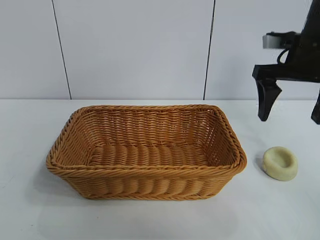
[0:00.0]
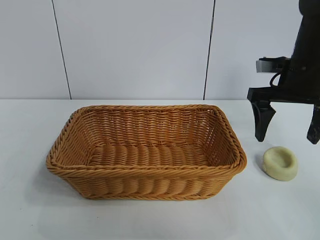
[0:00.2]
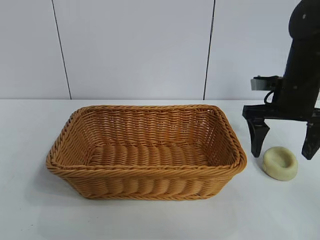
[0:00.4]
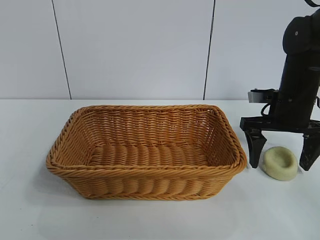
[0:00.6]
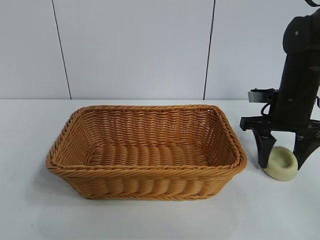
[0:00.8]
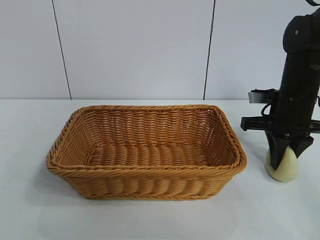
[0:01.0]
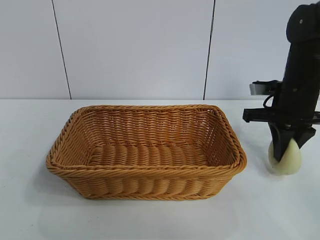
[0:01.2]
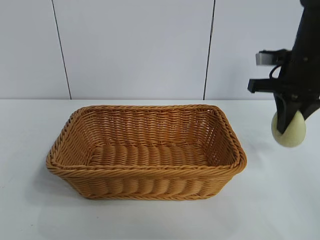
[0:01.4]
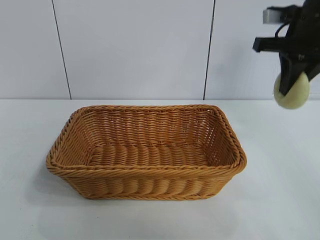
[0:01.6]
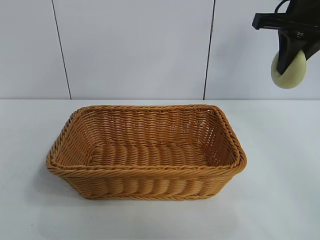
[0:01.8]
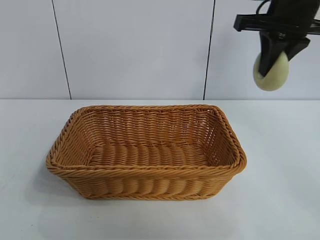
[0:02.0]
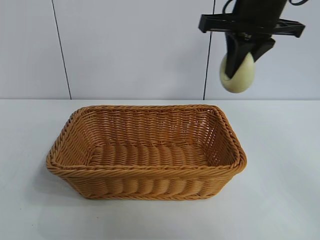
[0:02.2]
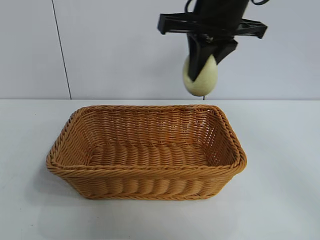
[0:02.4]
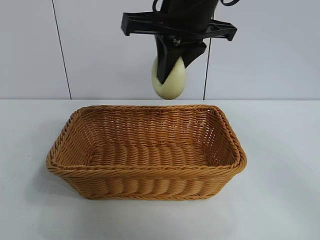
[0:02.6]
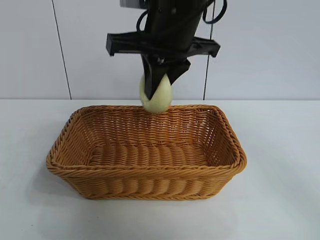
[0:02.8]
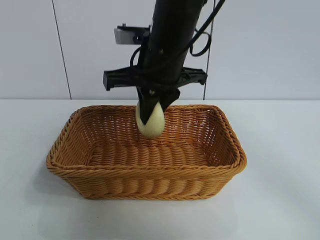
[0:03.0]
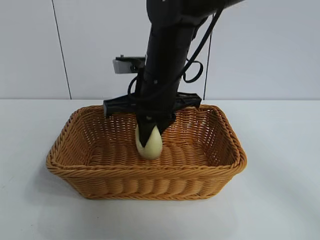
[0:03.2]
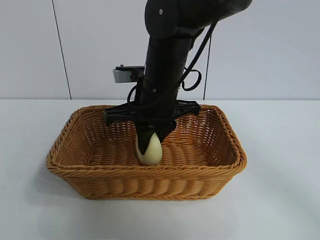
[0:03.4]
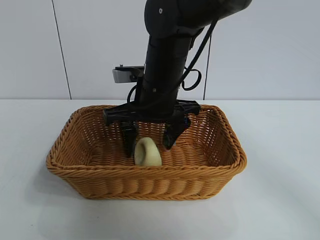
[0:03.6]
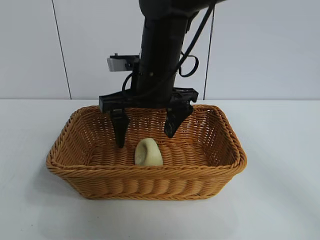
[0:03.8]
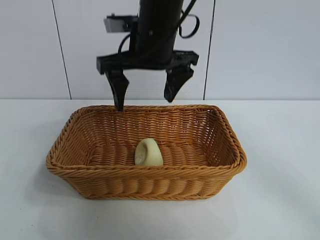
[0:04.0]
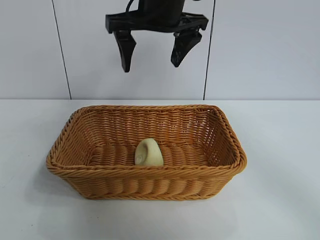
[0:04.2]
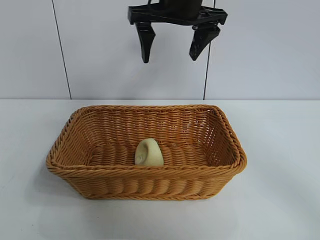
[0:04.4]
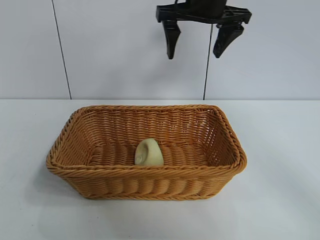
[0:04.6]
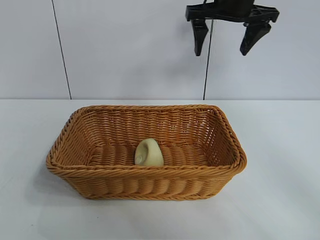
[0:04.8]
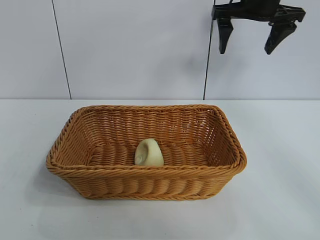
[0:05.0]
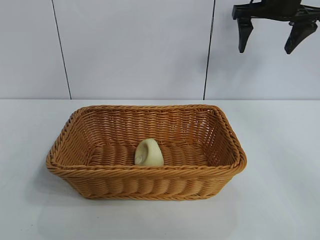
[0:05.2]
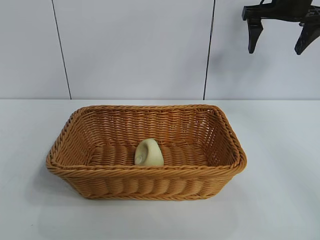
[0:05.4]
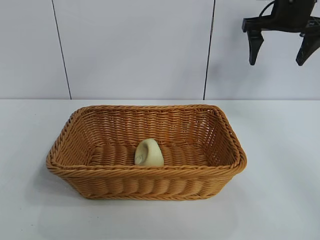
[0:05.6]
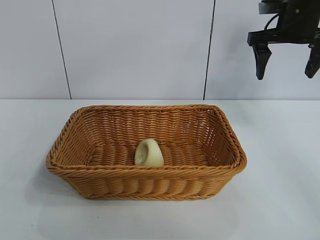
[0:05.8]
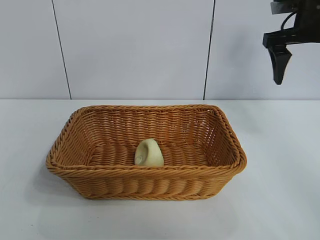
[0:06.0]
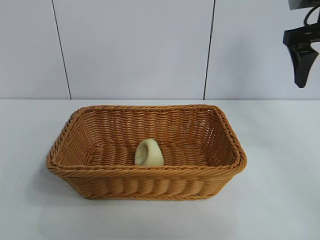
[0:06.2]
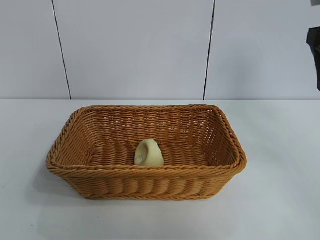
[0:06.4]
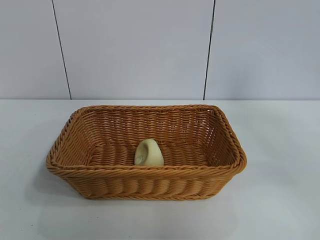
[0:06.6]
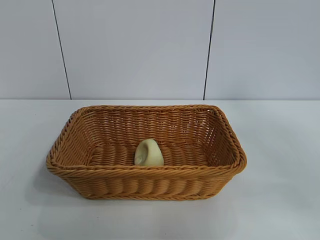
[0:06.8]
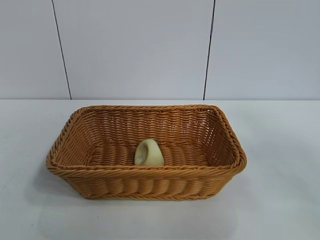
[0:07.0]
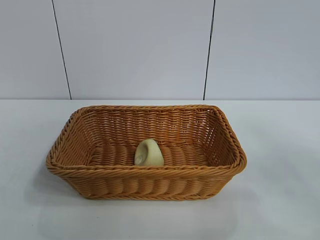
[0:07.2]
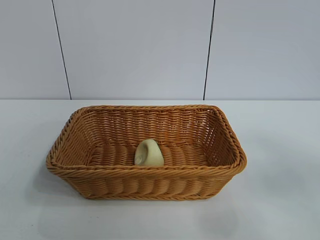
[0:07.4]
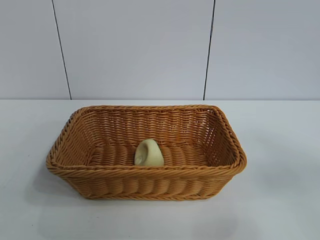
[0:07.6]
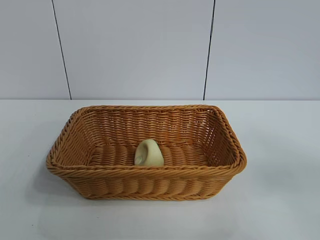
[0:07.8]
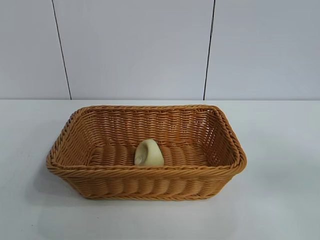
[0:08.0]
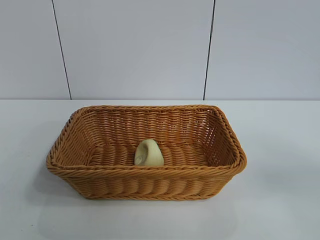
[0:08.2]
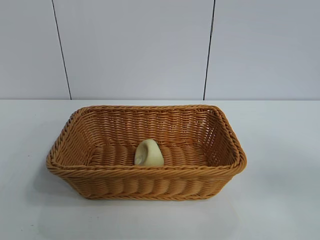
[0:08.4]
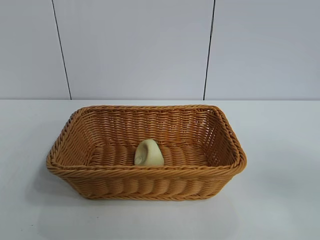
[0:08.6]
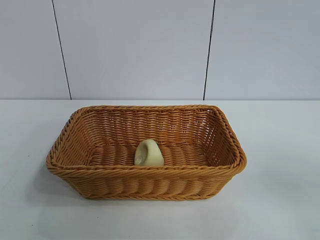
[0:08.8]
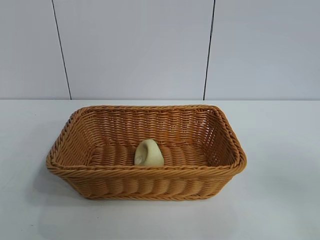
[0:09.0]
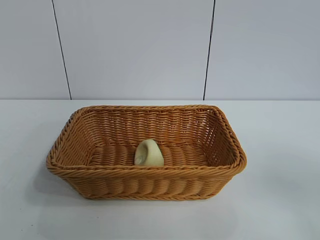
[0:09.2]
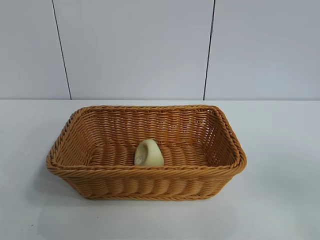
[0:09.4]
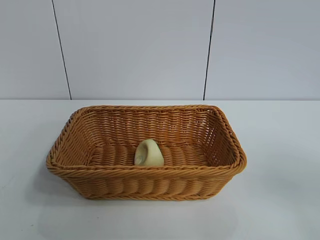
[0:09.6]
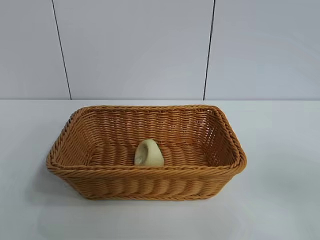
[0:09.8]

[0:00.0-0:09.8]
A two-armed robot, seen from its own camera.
Task of the whole recording: pick up the egg yolk pastry and put it into the basket.
Step, 0:01.2 to 0:03.6: Place the egg yolk pastry in the basket with right gripper.

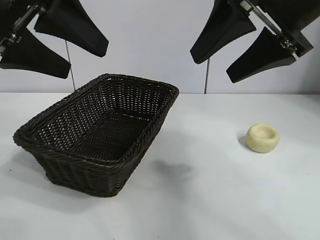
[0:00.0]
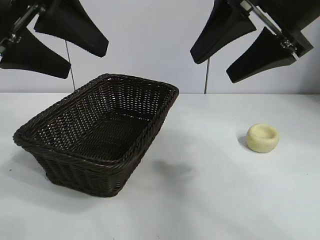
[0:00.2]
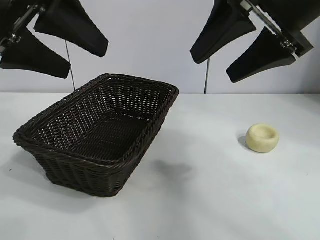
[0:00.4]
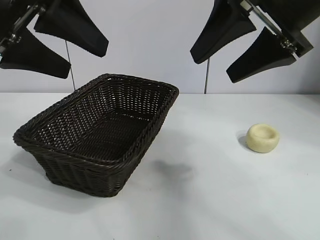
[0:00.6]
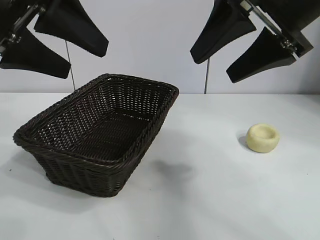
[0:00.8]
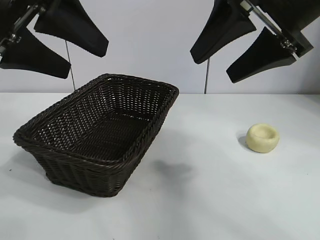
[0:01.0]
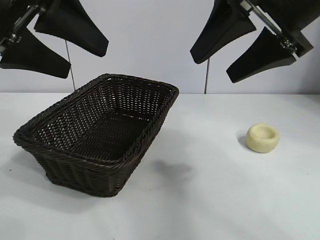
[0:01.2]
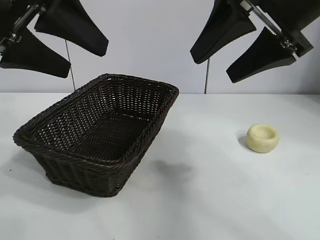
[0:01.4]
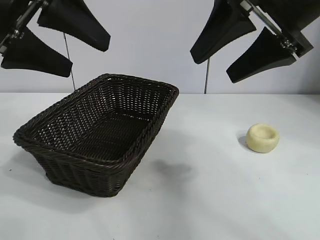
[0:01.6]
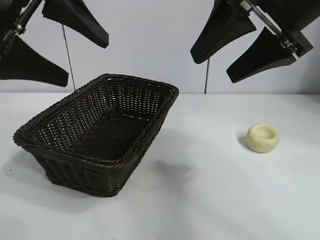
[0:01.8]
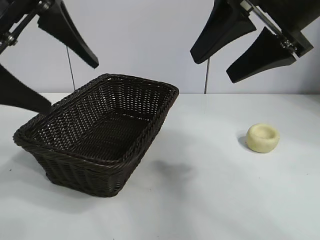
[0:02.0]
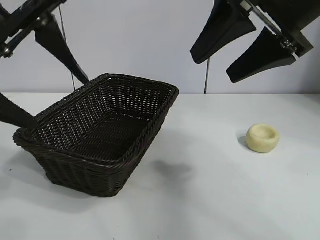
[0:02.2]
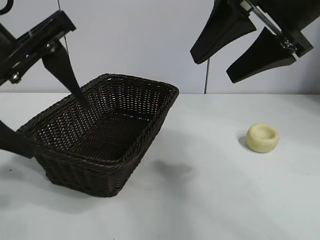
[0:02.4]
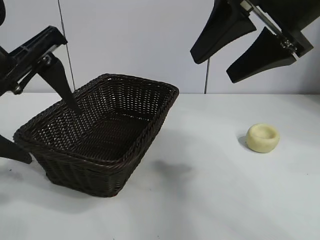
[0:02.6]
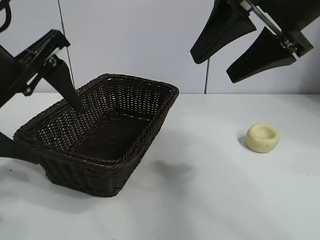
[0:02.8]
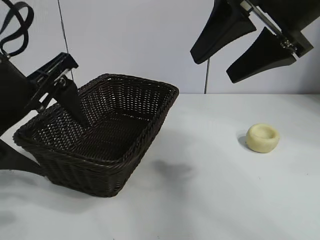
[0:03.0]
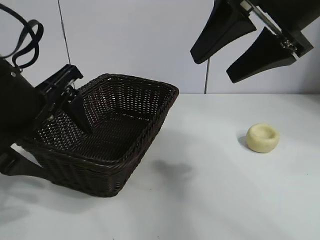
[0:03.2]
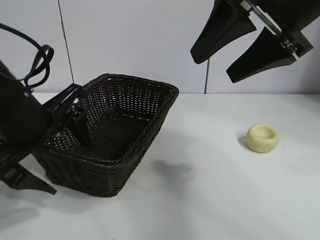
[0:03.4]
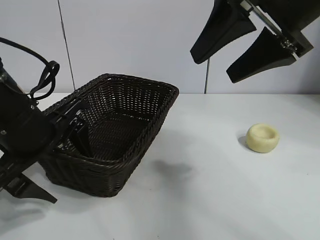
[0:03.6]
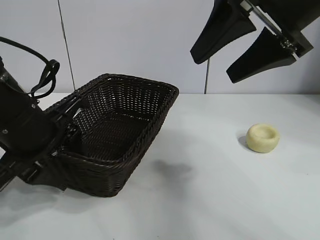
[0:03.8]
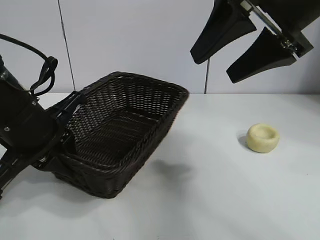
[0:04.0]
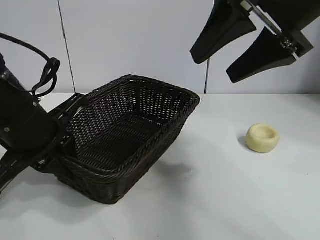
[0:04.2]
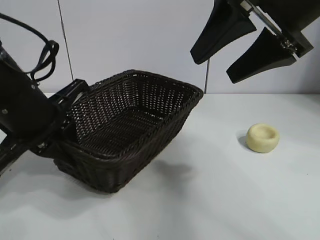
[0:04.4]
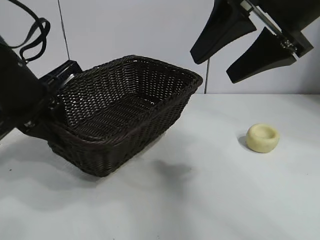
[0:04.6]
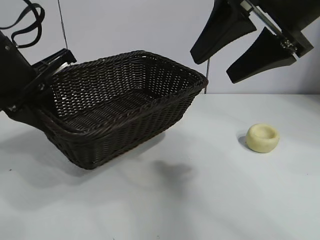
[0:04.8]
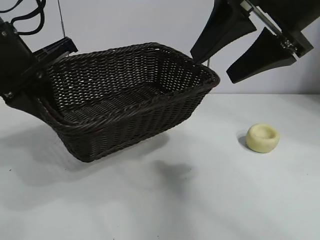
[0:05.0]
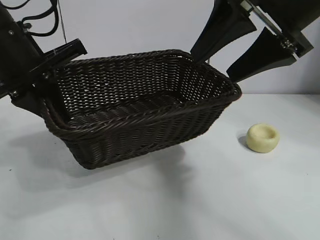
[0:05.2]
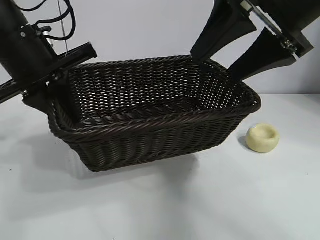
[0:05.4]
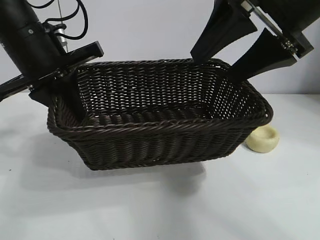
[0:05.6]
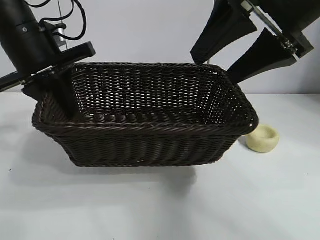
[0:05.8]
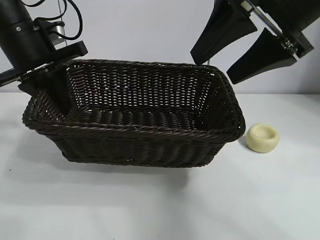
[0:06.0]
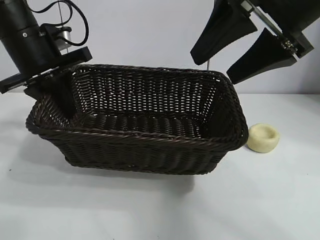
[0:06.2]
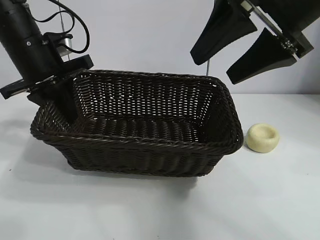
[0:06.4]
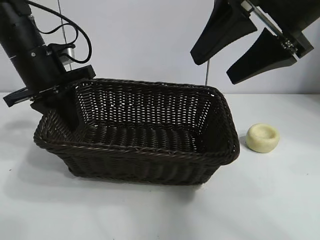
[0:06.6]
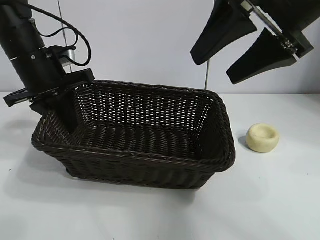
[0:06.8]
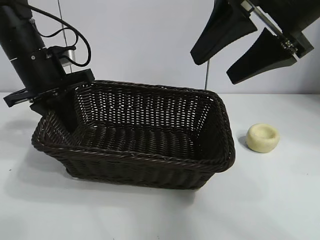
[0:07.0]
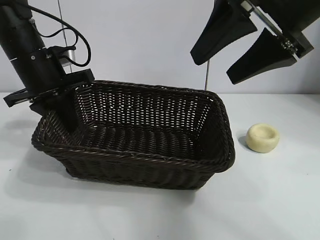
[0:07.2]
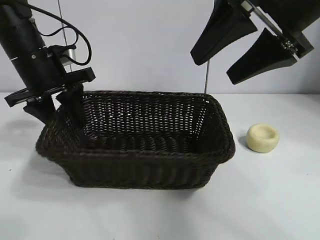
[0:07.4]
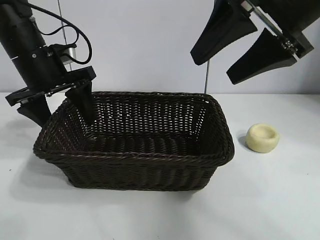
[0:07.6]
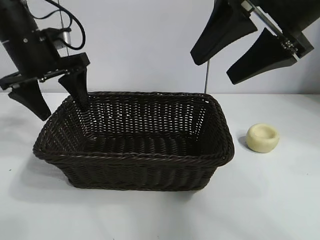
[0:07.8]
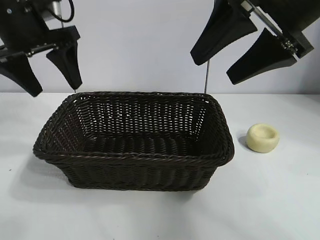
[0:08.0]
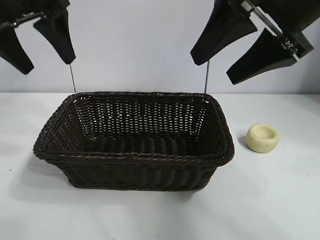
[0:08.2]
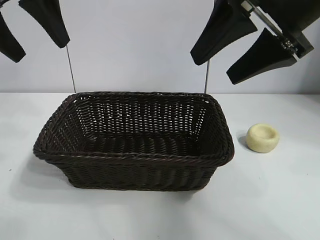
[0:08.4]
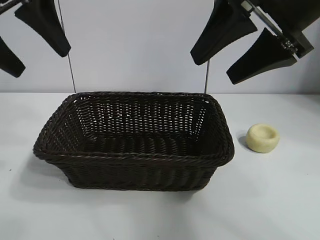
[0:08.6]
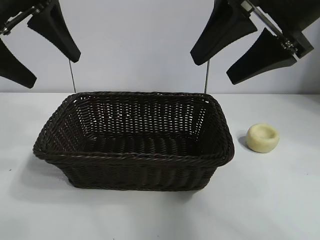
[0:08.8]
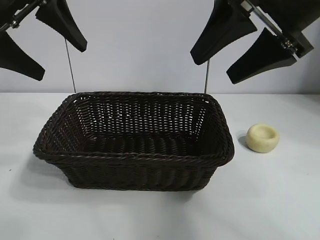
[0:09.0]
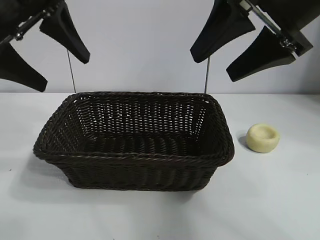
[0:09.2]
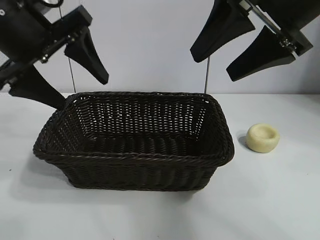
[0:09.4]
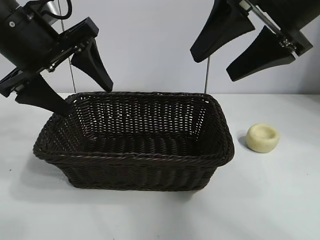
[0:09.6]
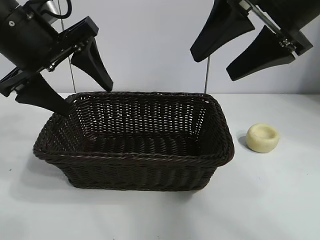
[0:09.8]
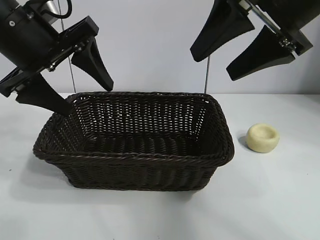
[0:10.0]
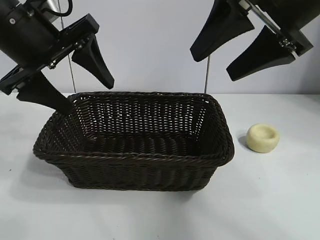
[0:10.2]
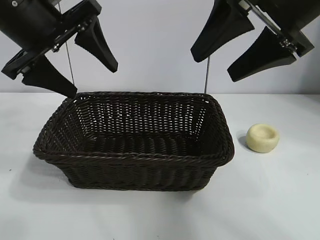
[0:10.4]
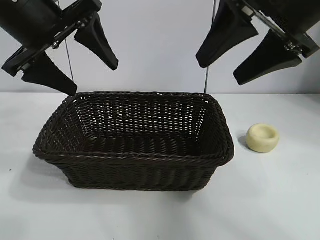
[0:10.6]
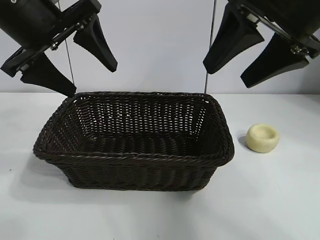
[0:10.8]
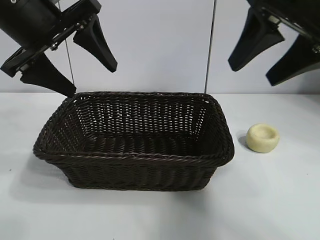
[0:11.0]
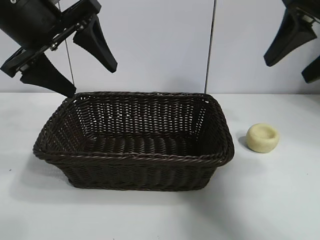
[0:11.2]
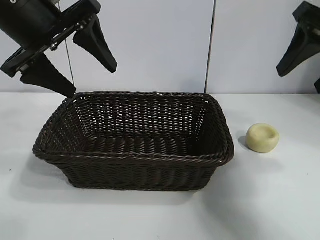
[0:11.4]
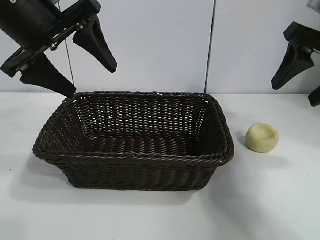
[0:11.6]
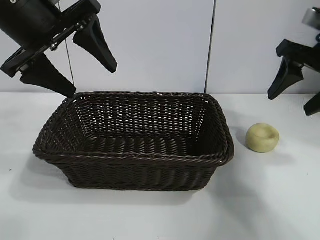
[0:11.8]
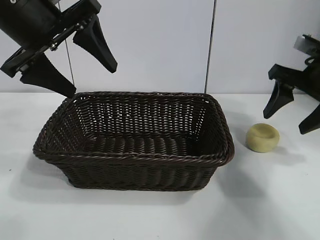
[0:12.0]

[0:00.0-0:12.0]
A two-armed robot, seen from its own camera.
Task of the whole recording: pick up the egg yolk pastry and put it into the basket.
Step, 0:01.4 to 0:04.0: Grasp the basket with left gripper.
Step, 0:04.2 to 0:07.6: Place the basket in the center of view with left gripper.

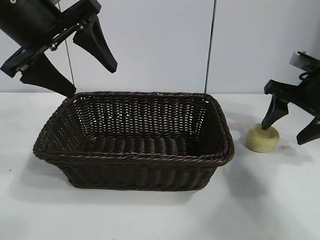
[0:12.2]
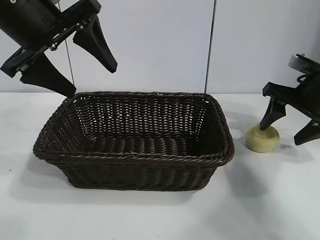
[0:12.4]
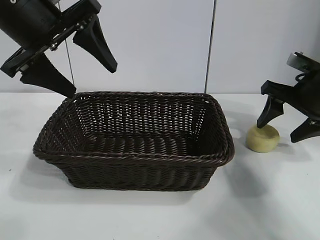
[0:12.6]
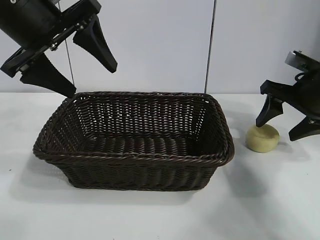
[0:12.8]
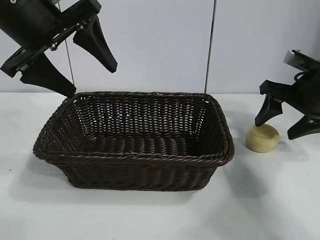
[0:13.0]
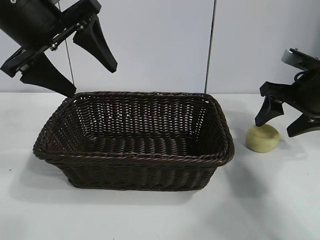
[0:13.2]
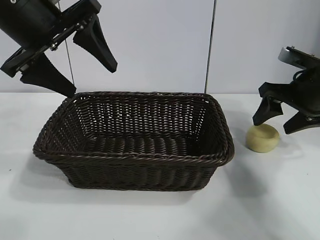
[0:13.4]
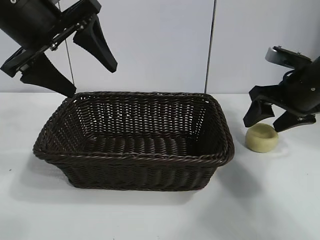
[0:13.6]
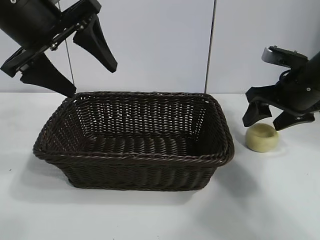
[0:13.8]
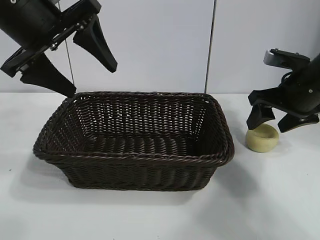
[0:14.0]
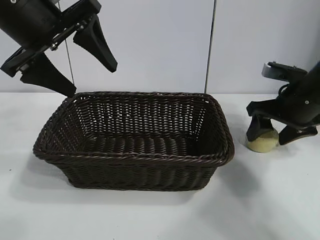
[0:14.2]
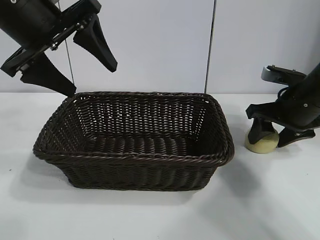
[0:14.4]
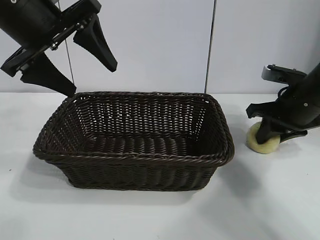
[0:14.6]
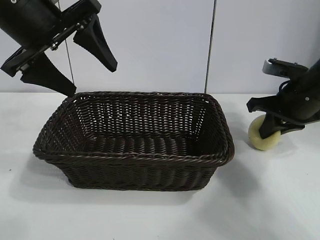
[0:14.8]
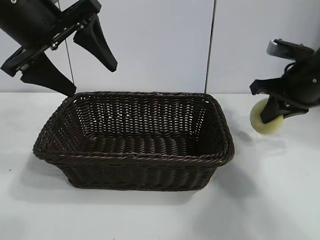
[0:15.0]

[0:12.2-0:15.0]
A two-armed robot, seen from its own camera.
Task of the whole recording: pick up the egg yolk pastry and put it into the basket.
Step, 0:12.2 to 0:14.6: Grasp egg yolk pastry with right gripper.
